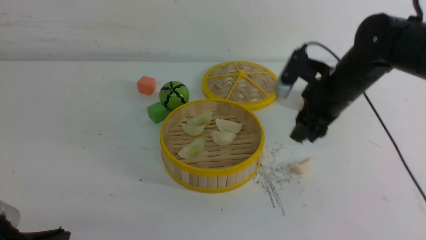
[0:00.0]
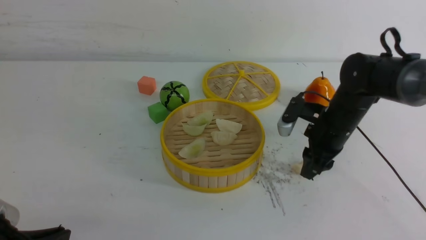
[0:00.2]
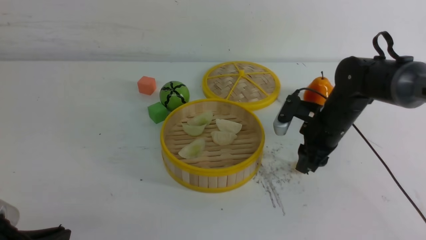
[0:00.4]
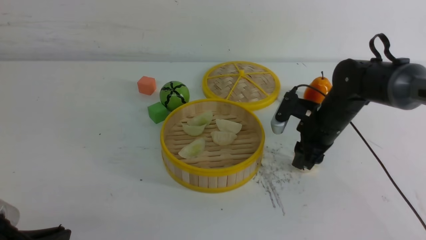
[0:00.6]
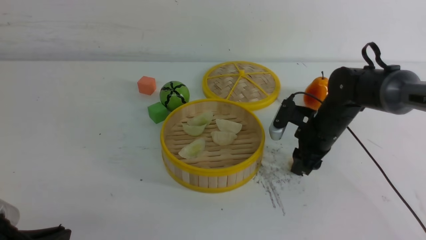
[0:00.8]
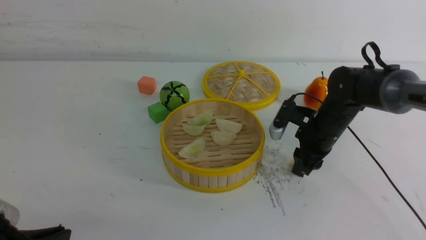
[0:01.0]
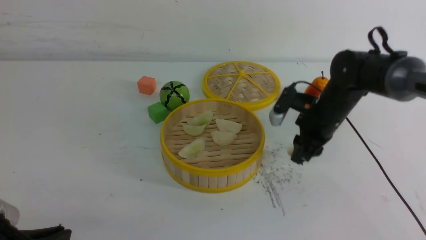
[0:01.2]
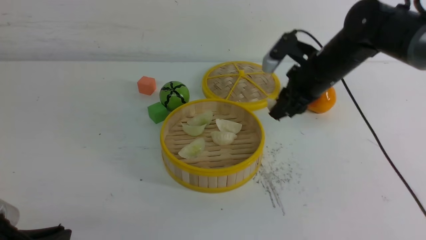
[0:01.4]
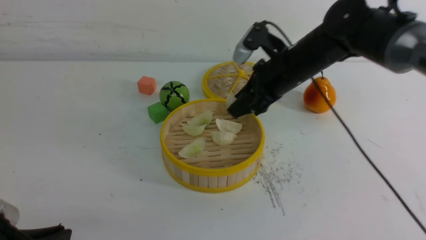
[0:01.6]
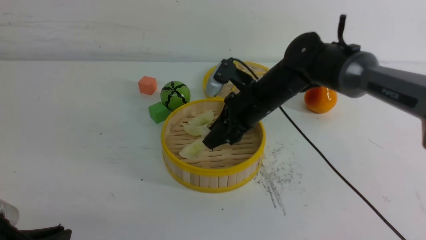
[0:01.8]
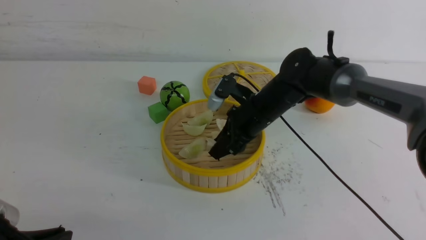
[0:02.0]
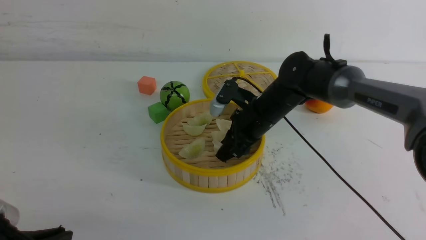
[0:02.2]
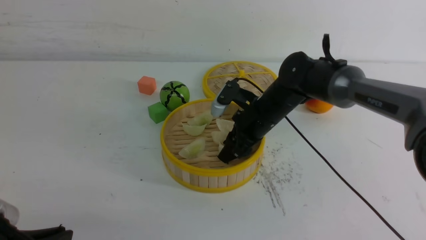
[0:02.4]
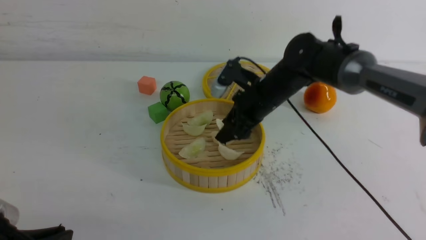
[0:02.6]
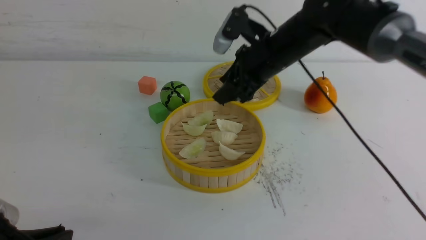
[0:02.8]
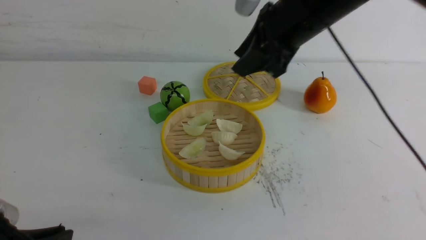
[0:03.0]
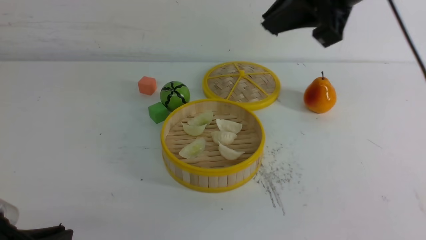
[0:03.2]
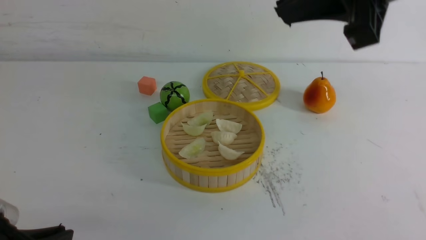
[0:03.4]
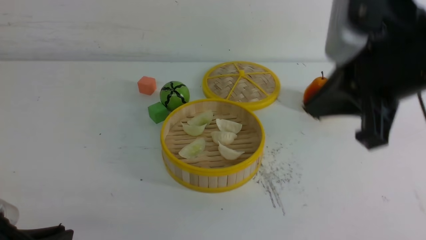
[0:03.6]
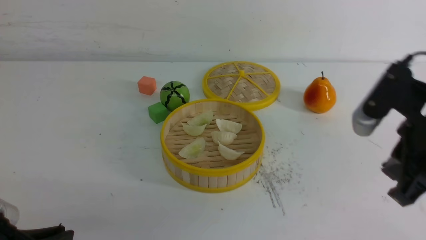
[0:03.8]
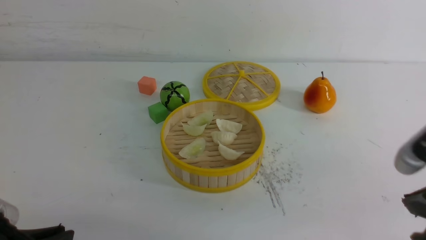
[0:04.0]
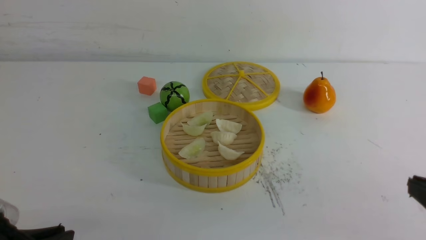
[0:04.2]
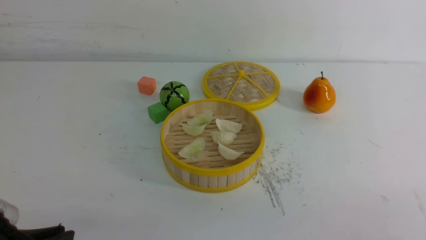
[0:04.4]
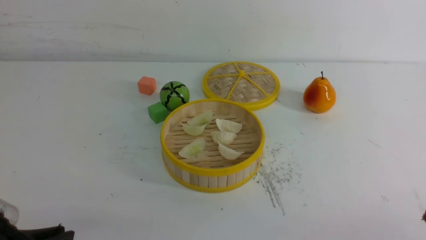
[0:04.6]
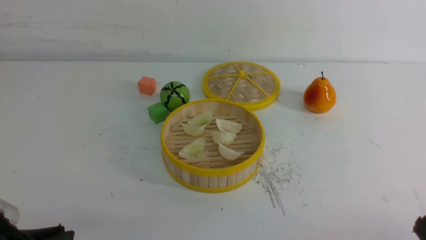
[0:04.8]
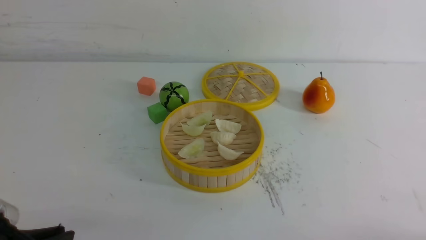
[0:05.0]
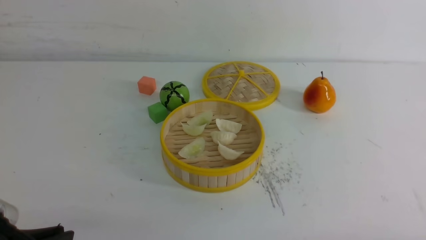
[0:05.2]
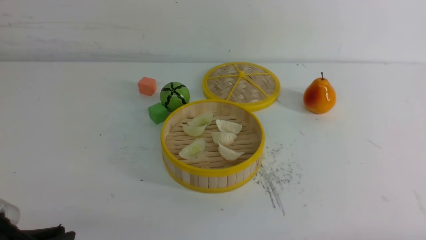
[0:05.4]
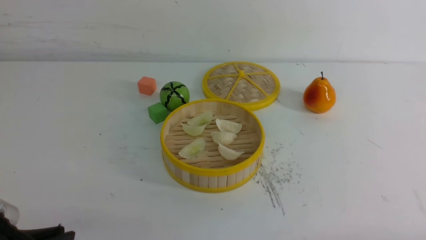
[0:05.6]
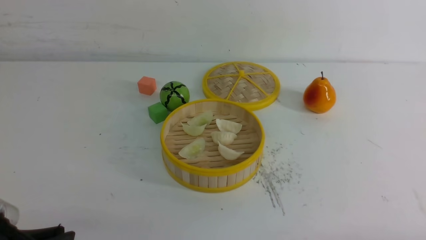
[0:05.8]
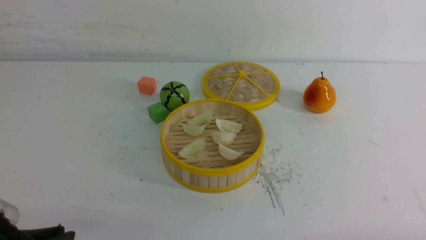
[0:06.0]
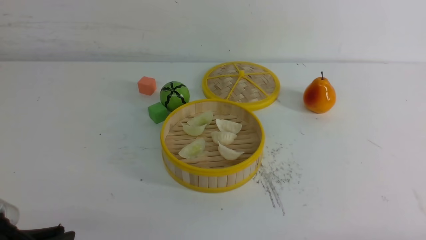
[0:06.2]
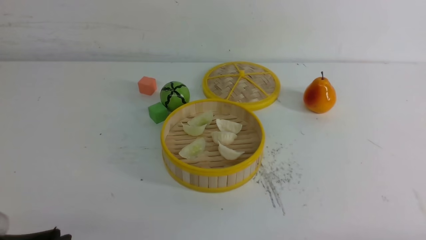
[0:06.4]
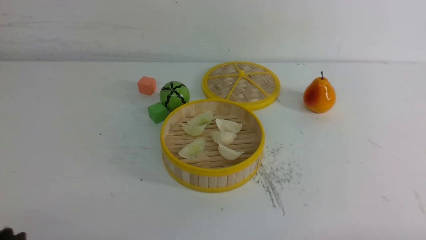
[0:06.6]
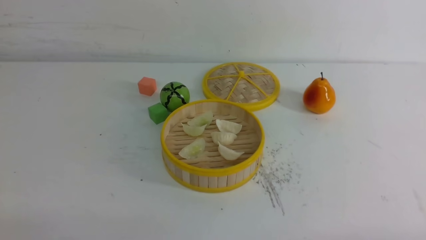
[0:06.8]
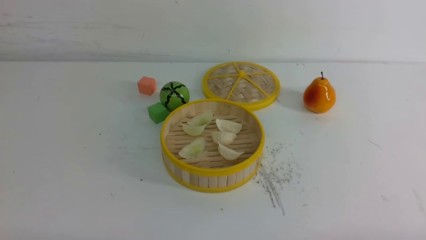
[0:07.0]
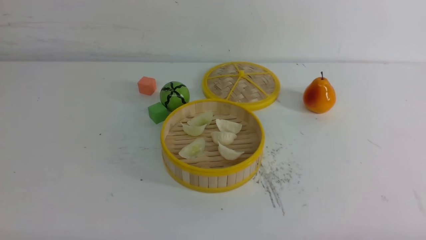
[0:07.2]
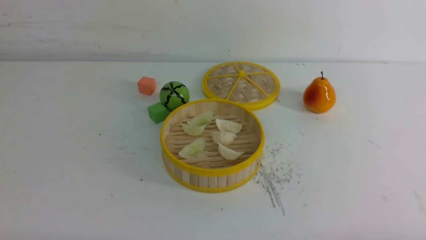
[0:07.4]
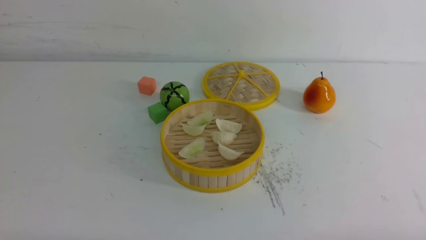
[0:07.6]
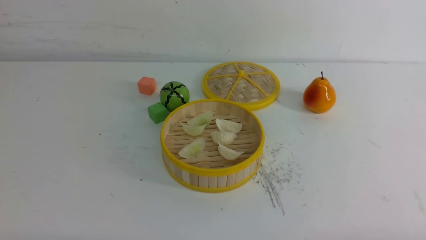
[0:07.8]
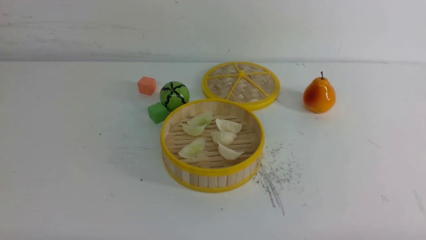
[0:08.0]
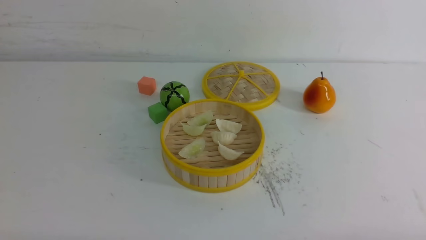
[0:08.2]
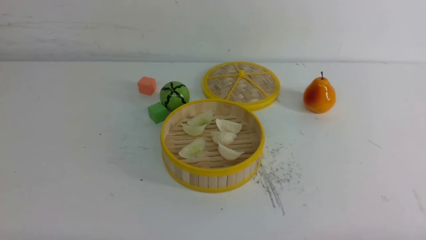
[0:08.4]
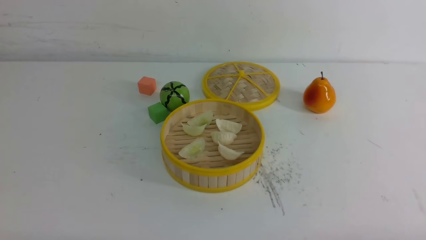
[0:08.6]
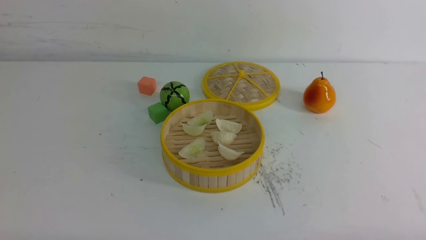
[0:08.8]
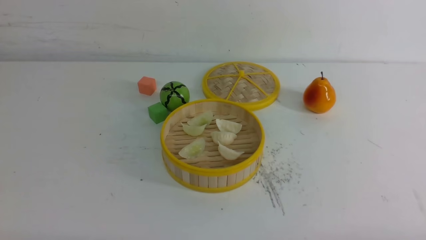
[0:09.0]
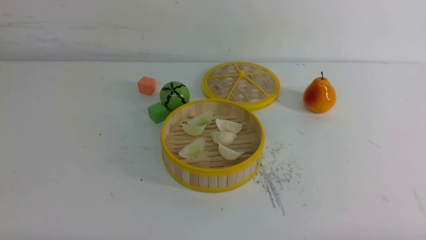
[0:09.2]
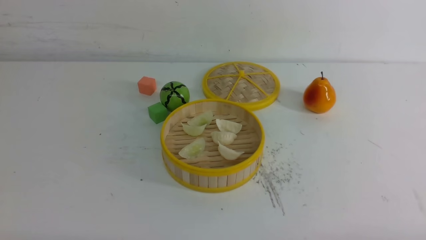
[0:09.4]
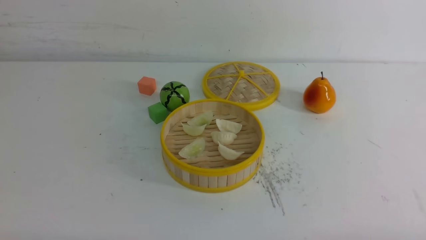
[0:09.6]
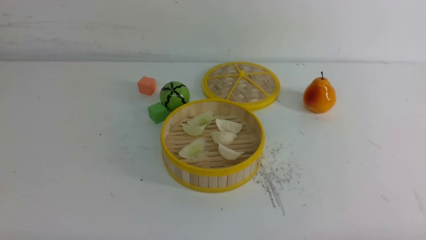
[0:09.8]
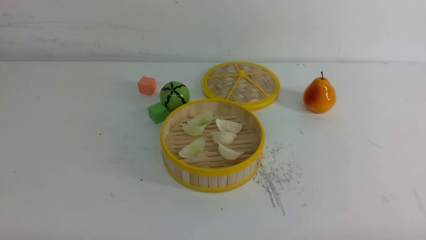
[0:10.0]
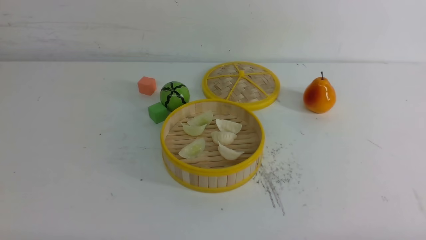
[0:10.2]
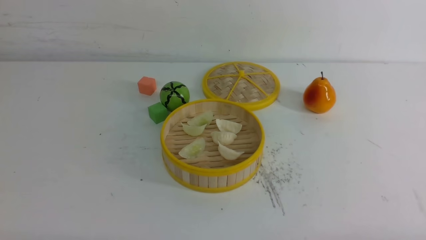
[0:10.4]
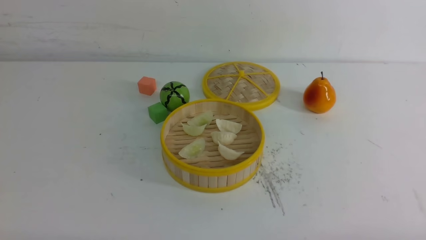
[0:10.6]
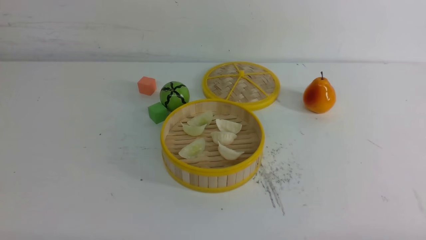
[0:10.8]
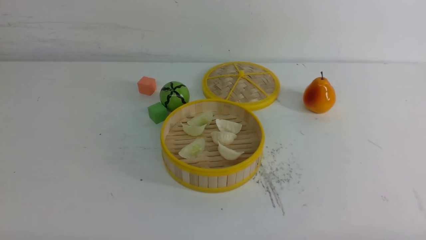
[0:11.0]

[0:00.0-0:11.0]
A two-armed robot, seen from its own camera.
Task of the whole recording: put the dumplings into the steamer on the white table.
Step, 0:00.0 to 0:01.0: use the right arm to grab a dumpling.
Step, 0:01.2 to 0:02.8: use the right arm to put the dumpling into the steamer.
0:00.0 to 0:01.6: The right gripper heads to the left, covering approximately 5 cm, and moves roughly 5 cm downward and comes back.
0:01.6 to 0:03.2: The right gripper travels upward and backward by roughly 25 cm, and closes up.
0:03.2 to 0:04.8: The right gripper travels downward, backward and to the right by about 40 cm.
0:06.2 to 0:07.8: The left gripper moves downward, some 10 cm, and closes its fingers.
0:07.8 to 0:11.0: The two grippers keep their place.
